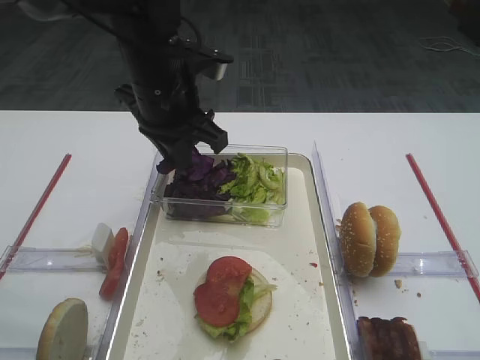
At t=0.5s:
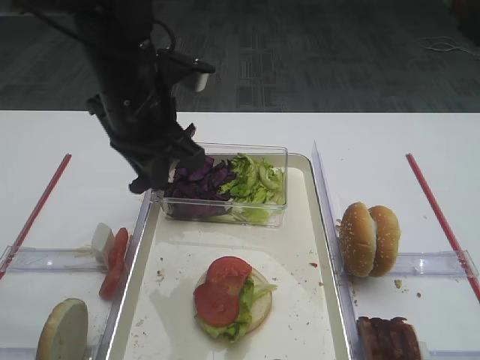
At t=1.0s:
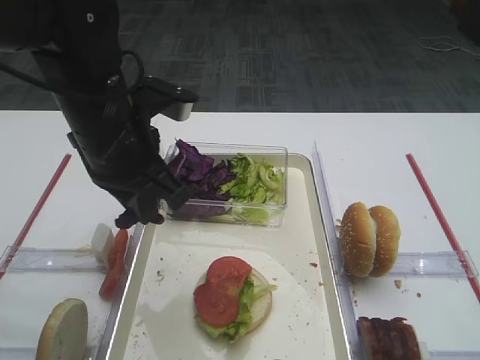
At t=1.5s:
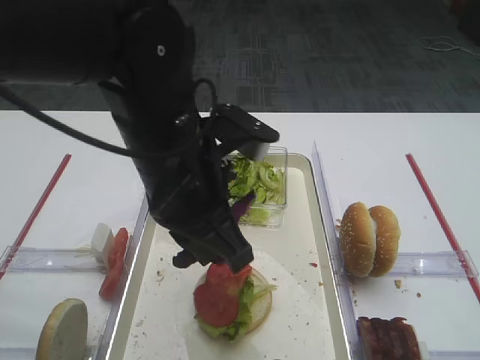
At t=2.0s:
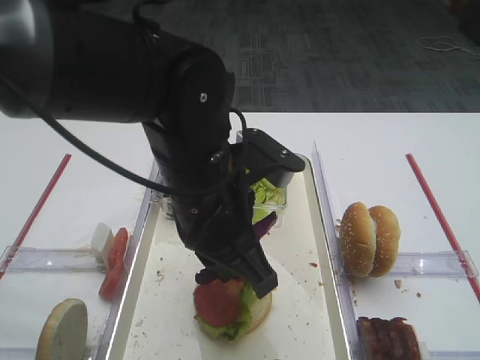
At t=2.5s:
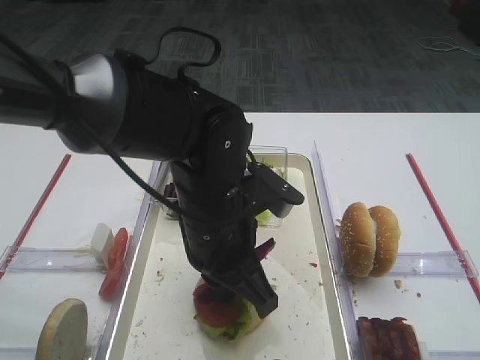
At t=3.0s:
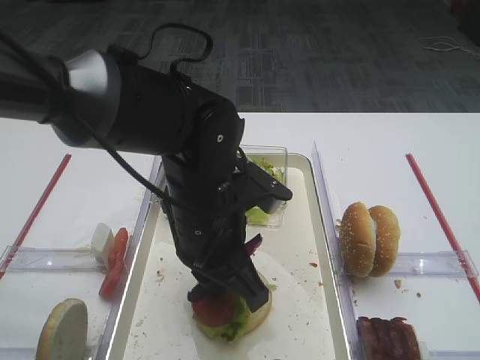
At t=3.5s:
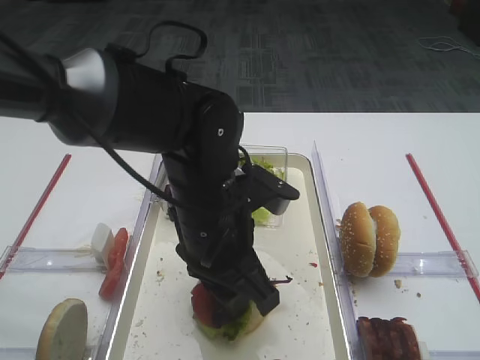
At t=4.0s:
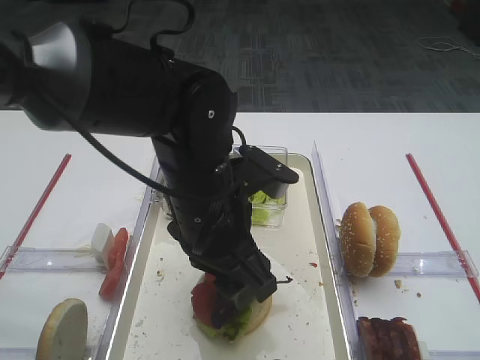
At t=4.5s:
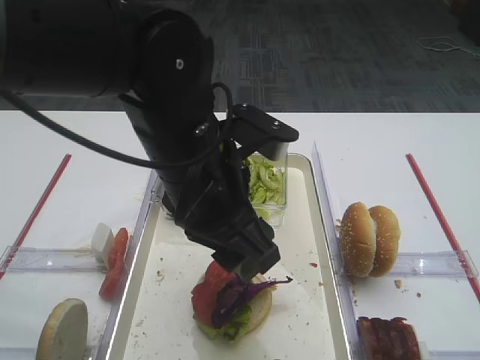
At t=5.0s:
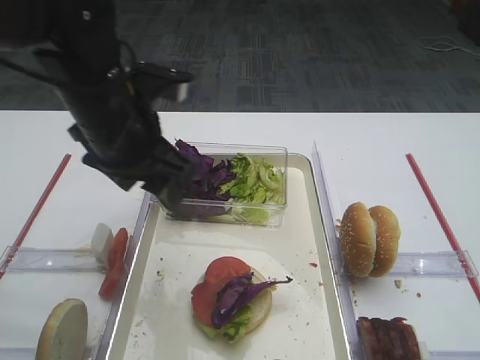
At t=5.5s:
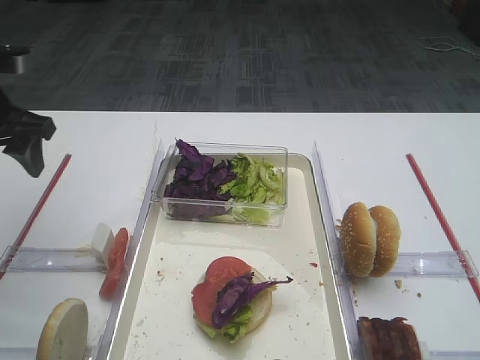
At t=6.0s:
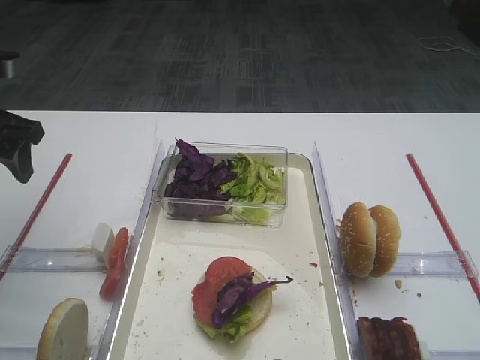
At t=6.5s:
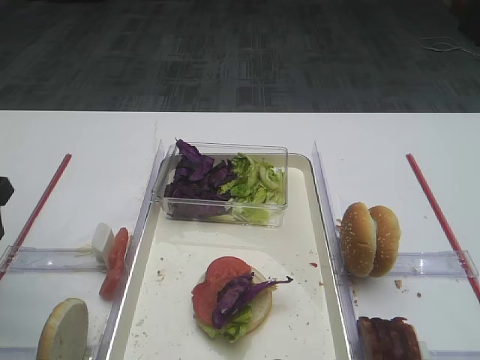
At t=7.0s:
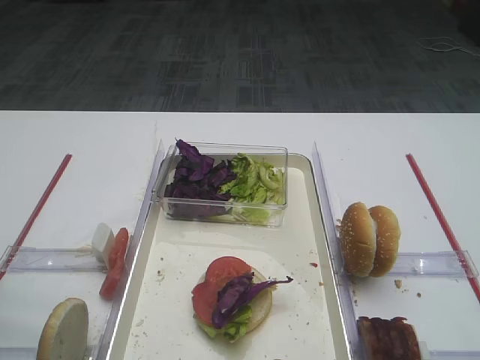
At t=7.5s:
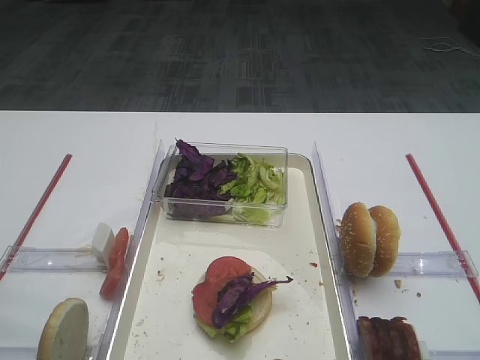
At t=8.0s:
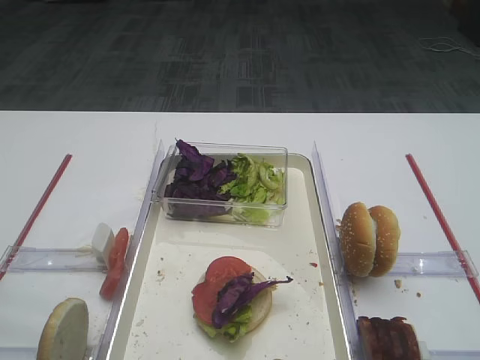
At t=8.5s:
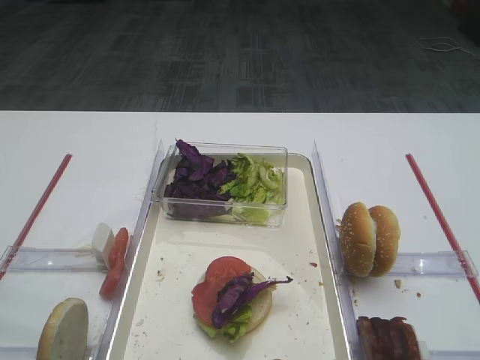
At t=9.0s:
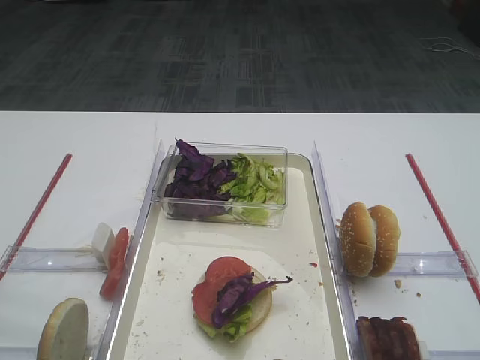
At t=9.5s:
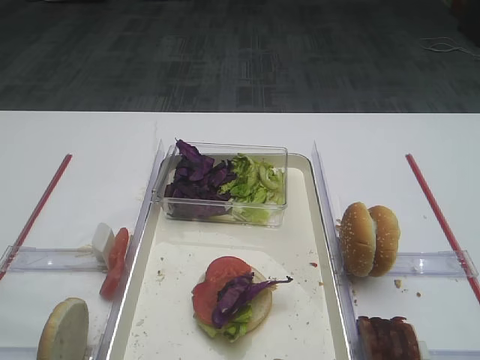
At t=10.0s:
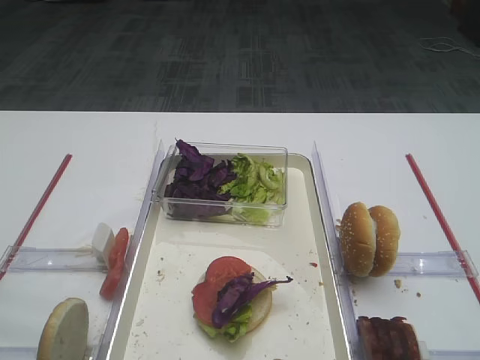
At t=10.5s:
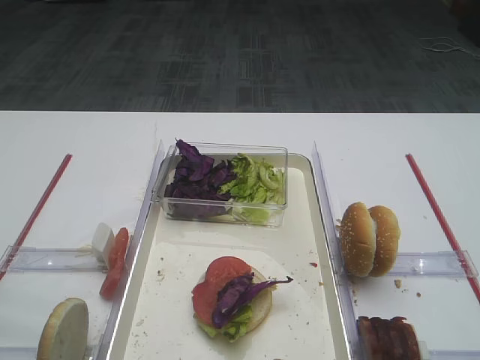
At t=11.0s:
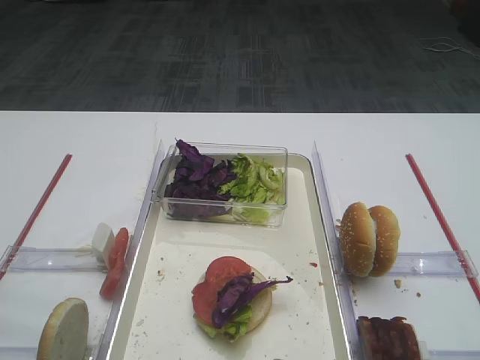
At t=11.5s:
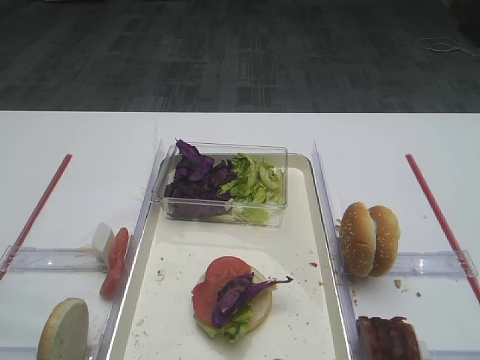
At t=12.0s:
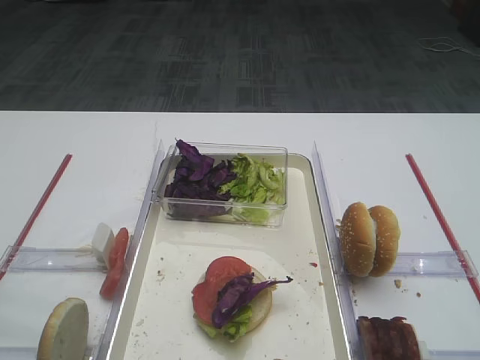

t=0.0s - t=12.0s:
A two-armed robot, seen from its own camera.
Step, t=0.0s - t=4.0s: Place the purple cabbage on the tomato slice with the left gripper.
t=0.0s - t=2.0s: The left gripper travels backward and to the right by about 15 cm.
t=2.0s - t=4.0s: The left gripper opens up.
t=4.0s - t=6.0s: The left gripper heads to the left, covering some 25 cm.
t=6.0s - t=8.0s: The left gripper goes approximately 30 cm backward.
t=10.0s - t=12.0s: Both grippers stay put.

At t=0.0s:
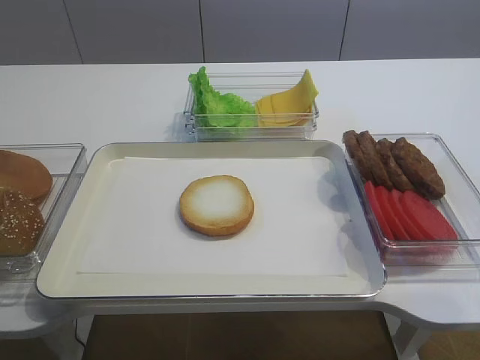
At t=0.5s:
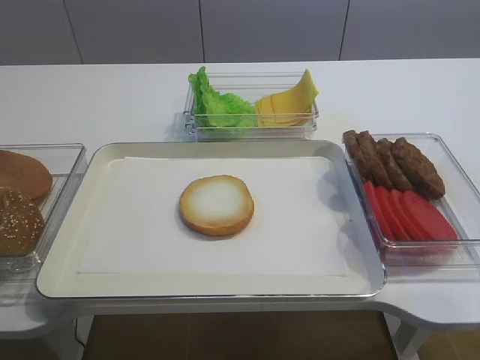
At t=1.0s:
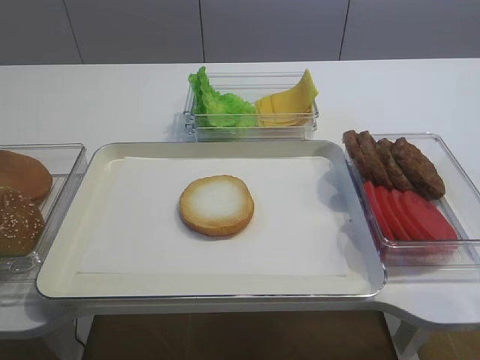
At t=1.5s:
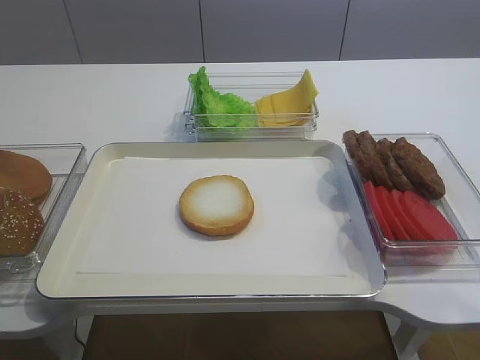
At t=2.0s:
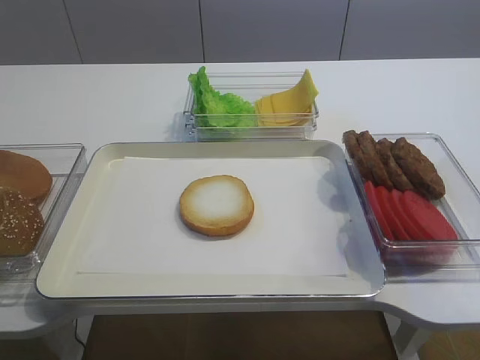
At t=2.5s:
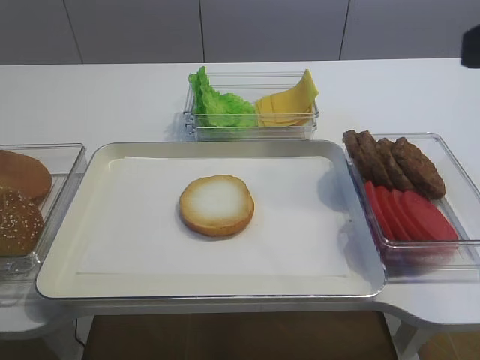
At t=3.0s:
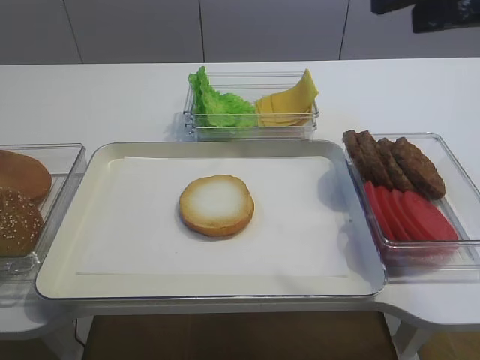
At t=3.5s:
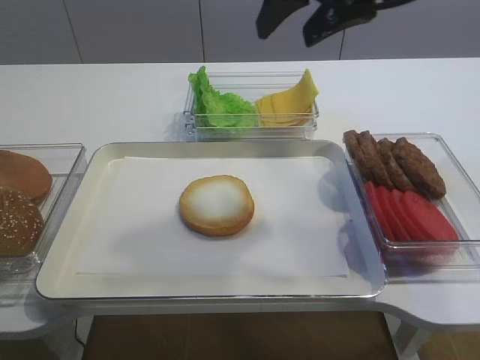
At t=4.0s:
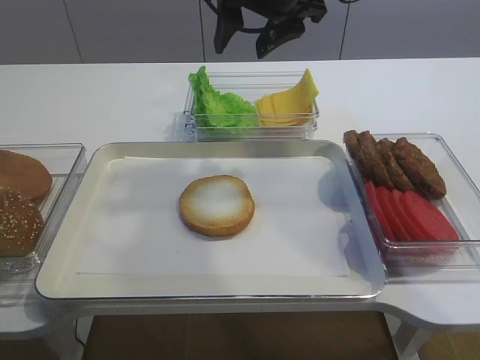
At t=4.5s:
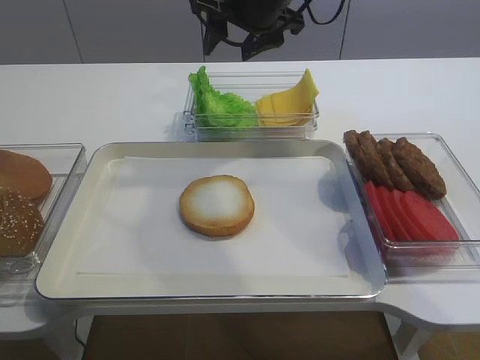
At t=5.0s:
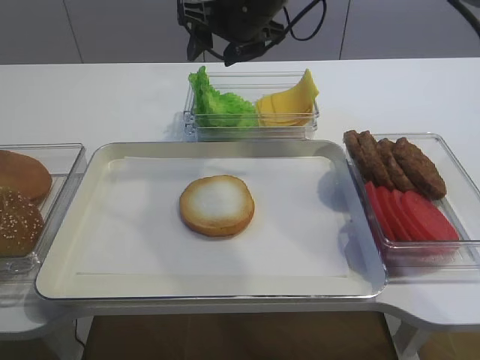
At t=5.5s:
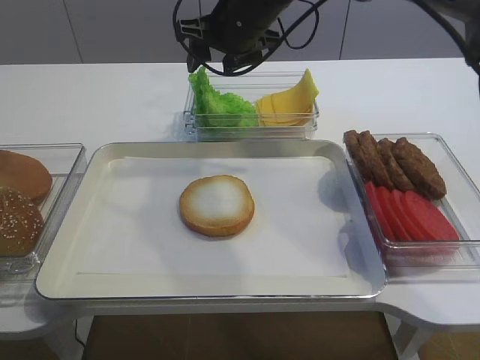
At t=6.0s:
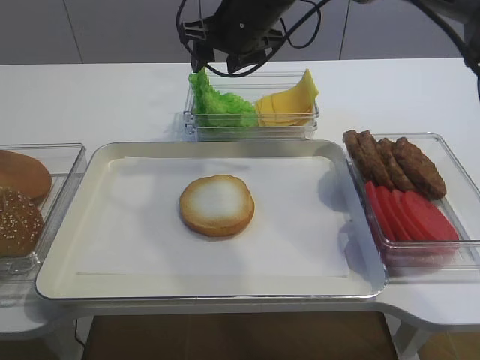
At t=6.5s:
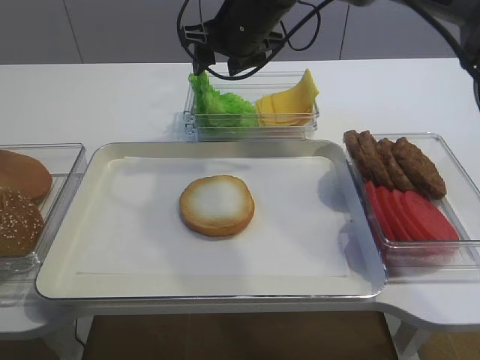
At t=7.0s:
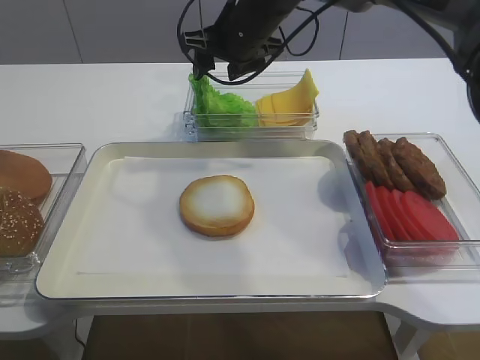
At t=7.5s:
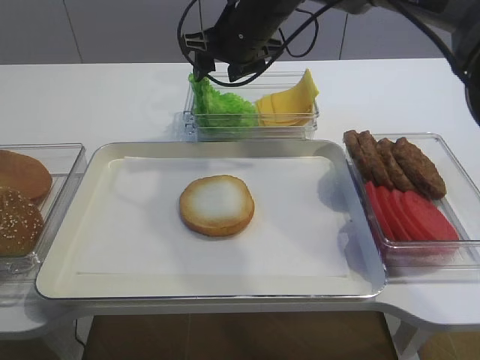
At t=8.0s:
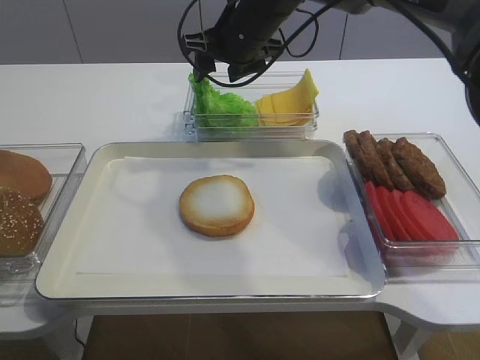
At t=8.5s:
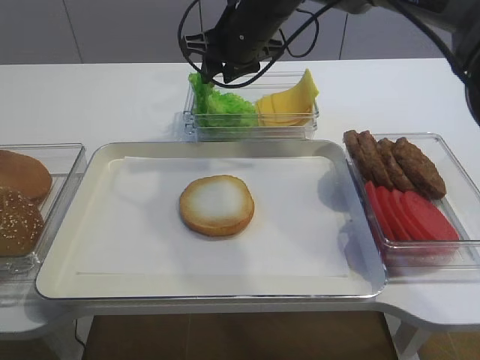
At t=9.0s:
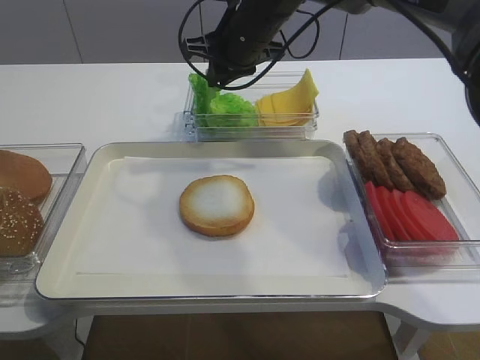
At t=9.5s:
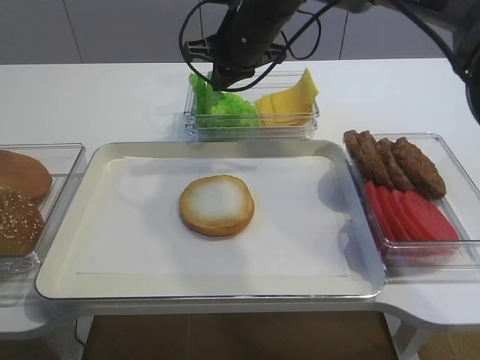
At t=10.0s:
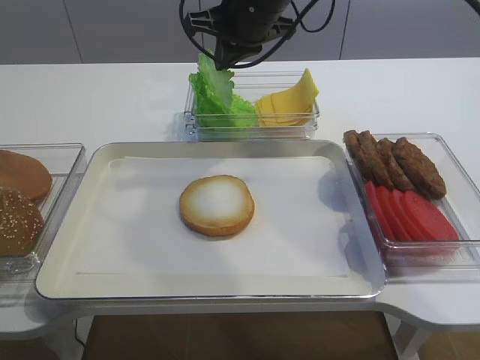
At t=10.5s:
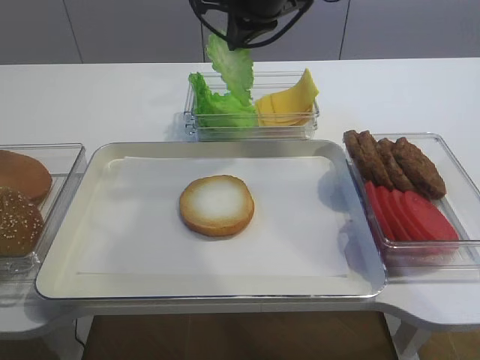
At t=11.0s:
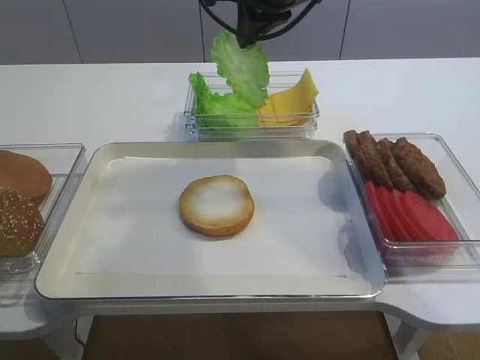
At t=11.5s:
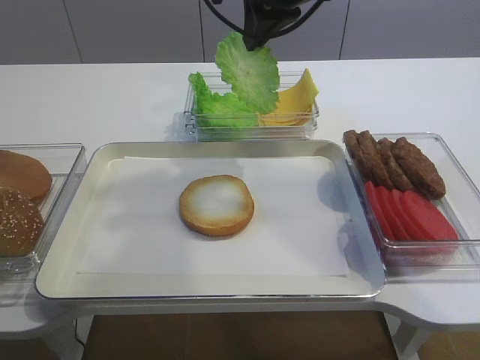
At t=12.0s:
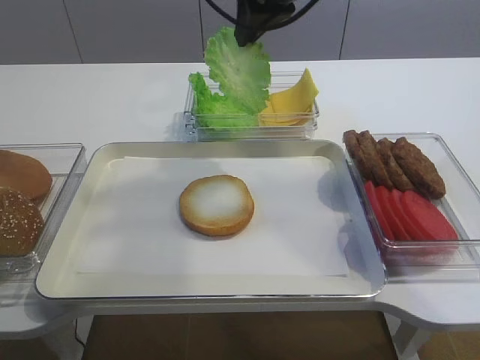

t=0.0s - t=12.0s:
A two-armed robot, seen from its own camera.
Step, t=0.0s - t=9.5s: Pick up the lettuce leaf with the right gripper.
t=2.0s - t=4.0s: The right gripper travels forward and to the left by some 40 cm.
t=4.0s - t=6.0s: The right gripper travels downward by roughly 5 cm.
t=6.0s - t=8.0s: The two grippers keep their place.
t=8.0s - t=10.0s: The right gripper closes its fingers.
t=10.0s - t=12.0s: The right gripper moves upward, approximately 5 cm.

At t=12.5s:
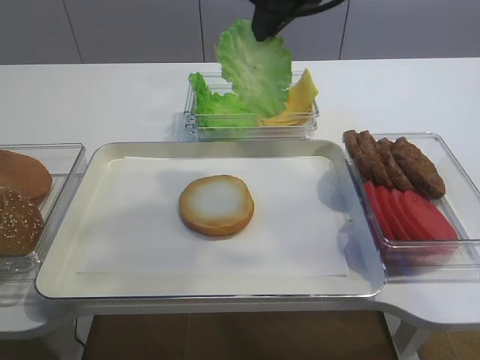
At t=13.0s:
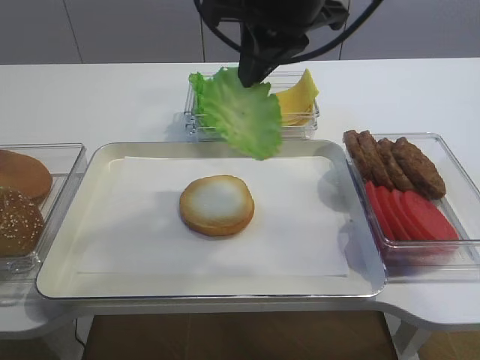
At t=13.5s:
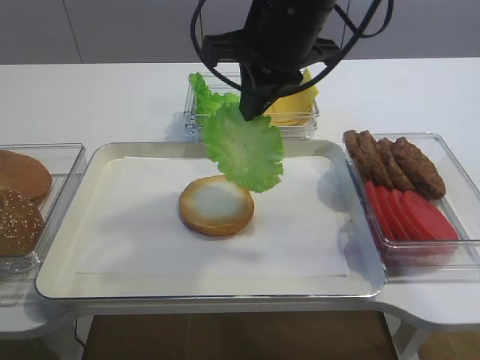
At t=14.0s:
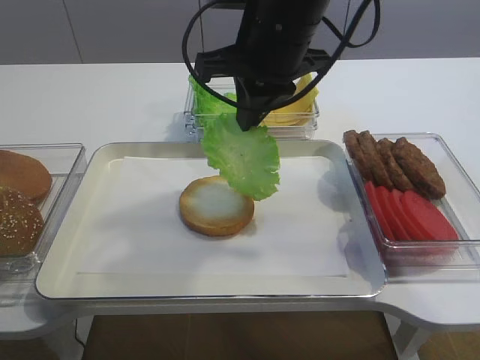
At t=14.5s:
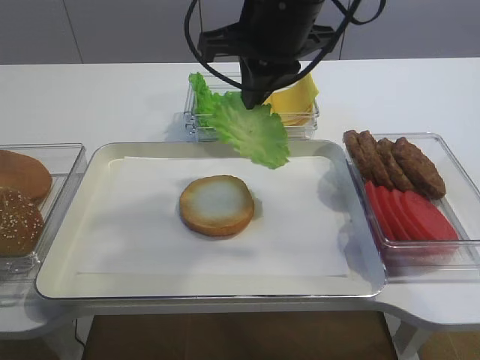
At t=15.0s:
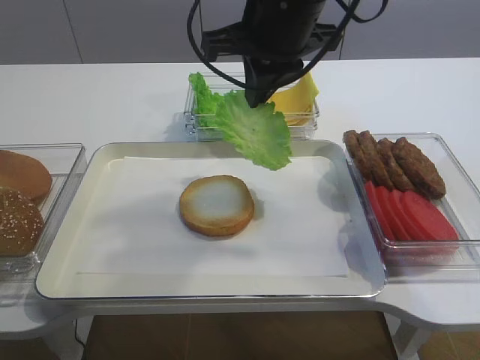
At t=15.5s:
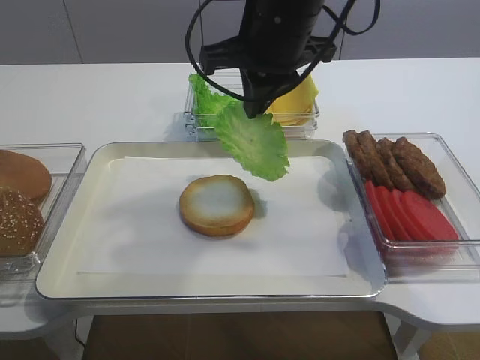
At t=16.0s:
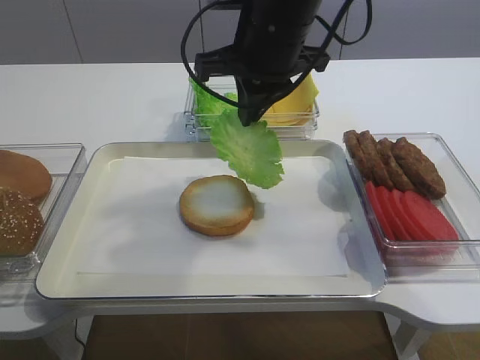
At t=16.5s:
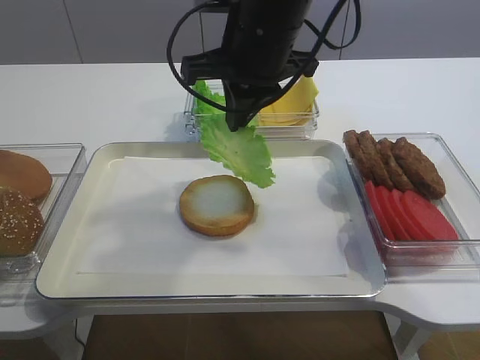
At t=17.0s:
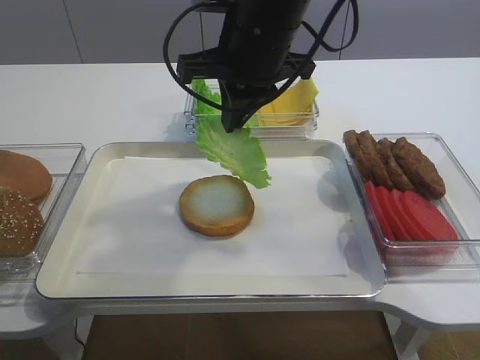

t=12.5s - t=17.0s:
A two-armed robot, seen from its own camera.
t=12.5s - t=14.5s: The right gripper shifts approximately 5 cm downward.
t=14.5s - t=17.0s: The grippers make only small movements.
